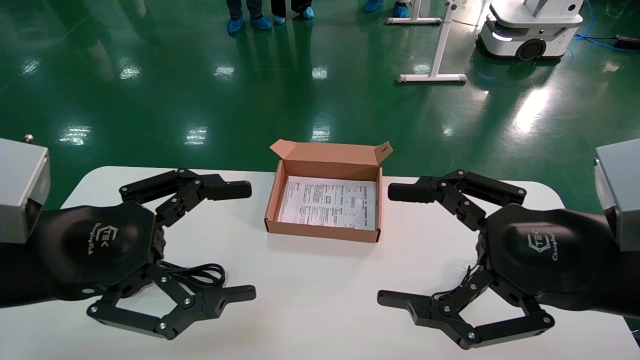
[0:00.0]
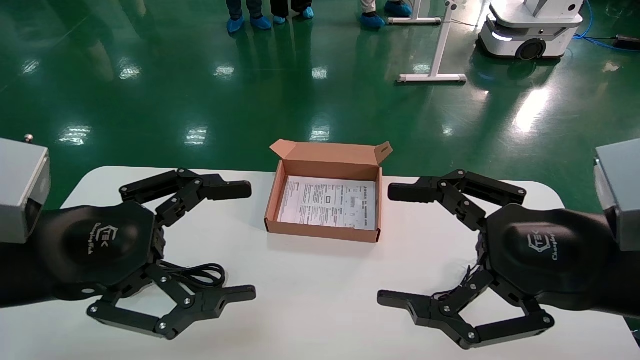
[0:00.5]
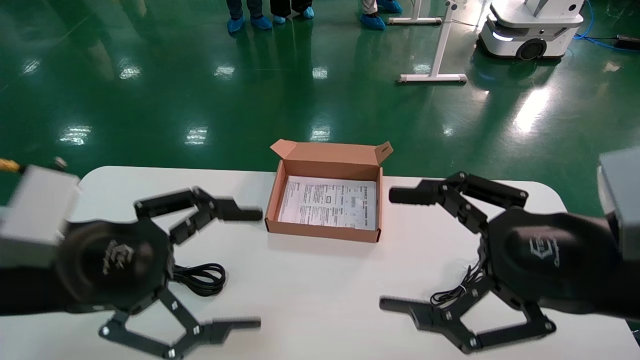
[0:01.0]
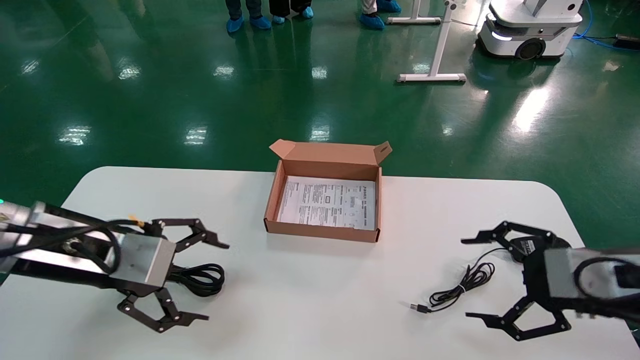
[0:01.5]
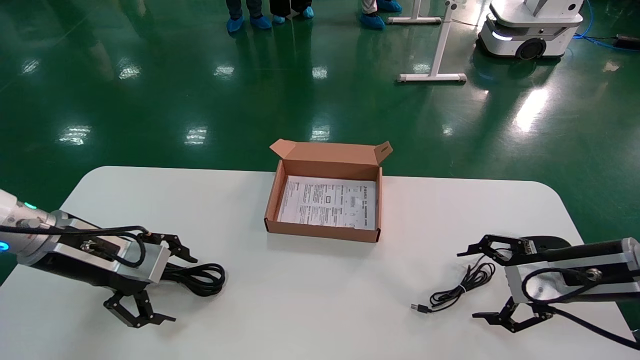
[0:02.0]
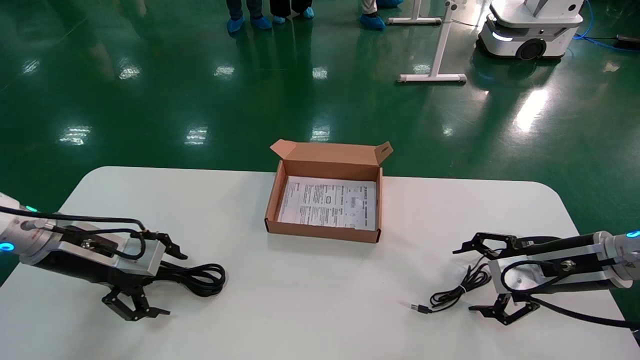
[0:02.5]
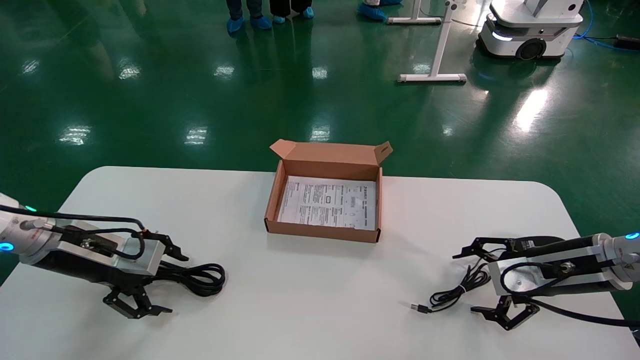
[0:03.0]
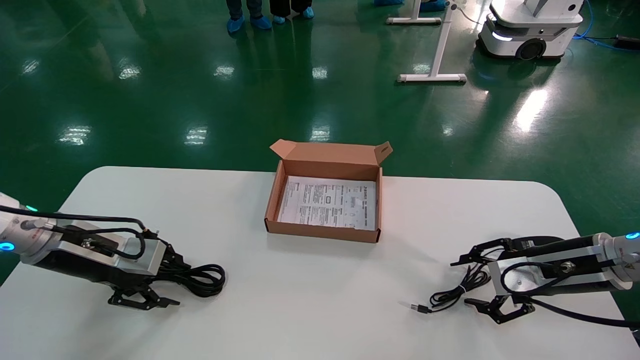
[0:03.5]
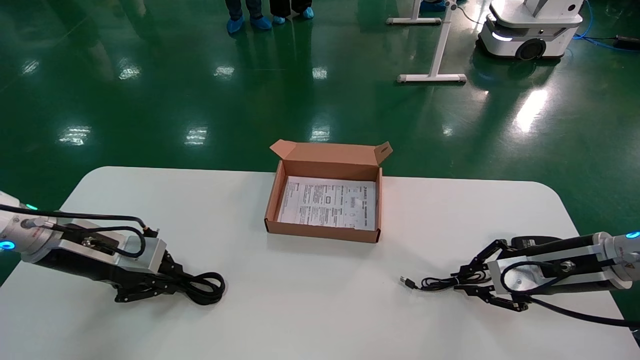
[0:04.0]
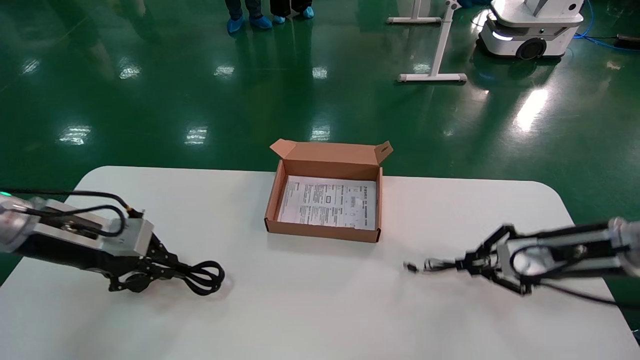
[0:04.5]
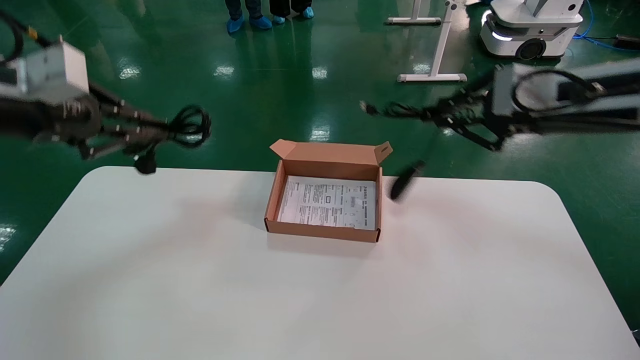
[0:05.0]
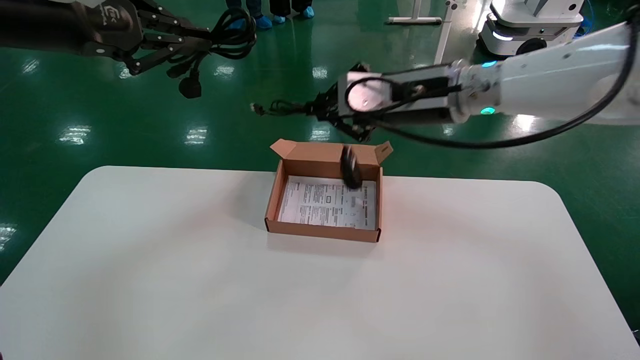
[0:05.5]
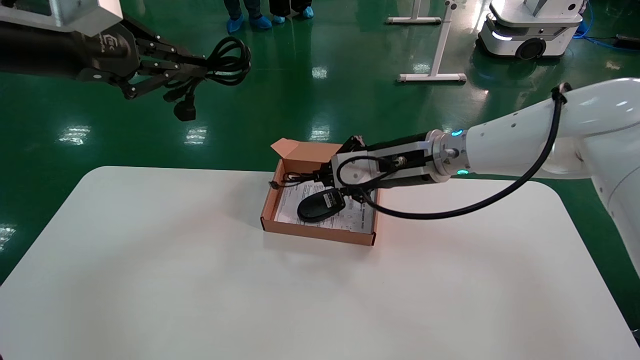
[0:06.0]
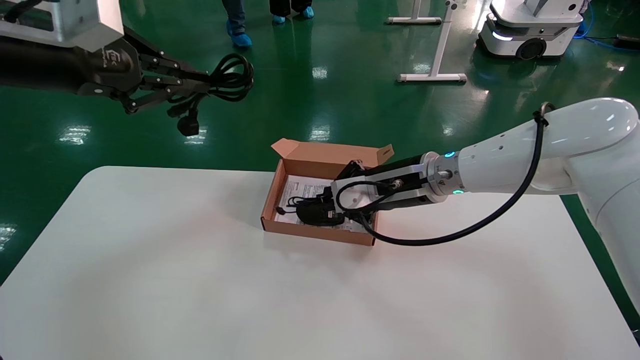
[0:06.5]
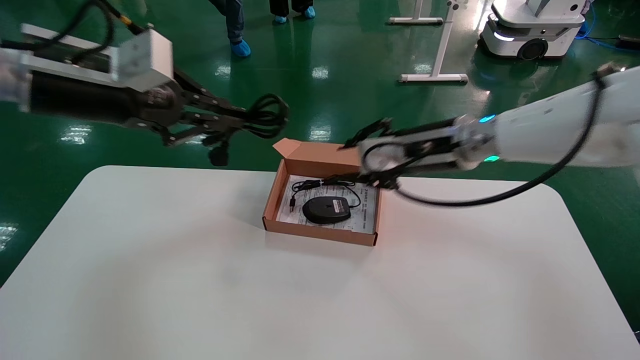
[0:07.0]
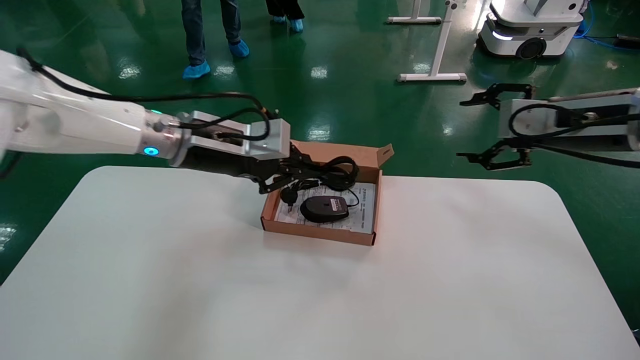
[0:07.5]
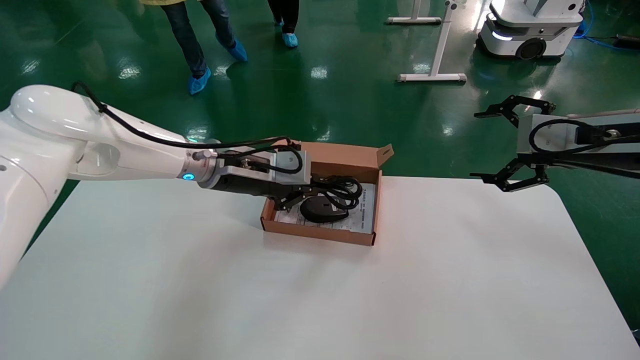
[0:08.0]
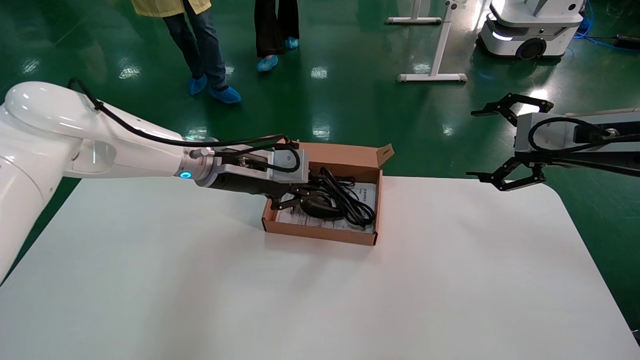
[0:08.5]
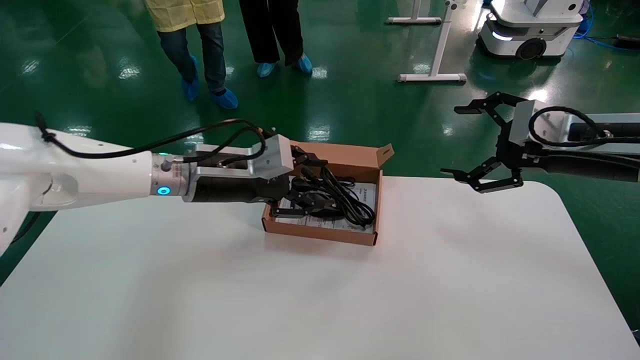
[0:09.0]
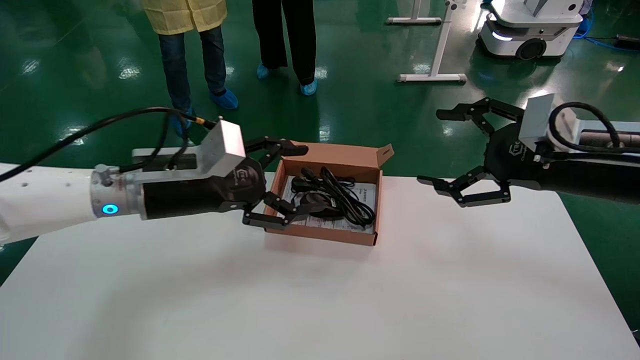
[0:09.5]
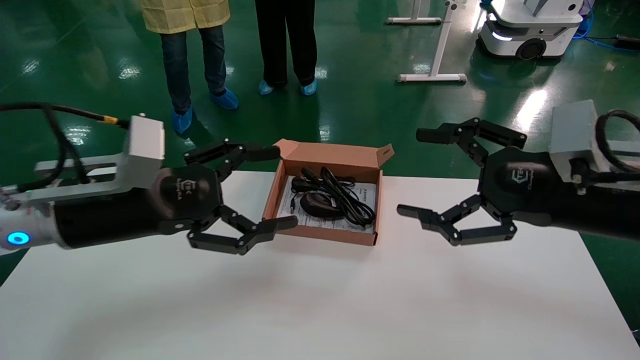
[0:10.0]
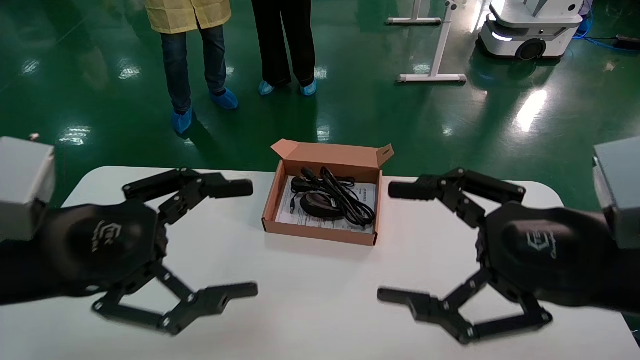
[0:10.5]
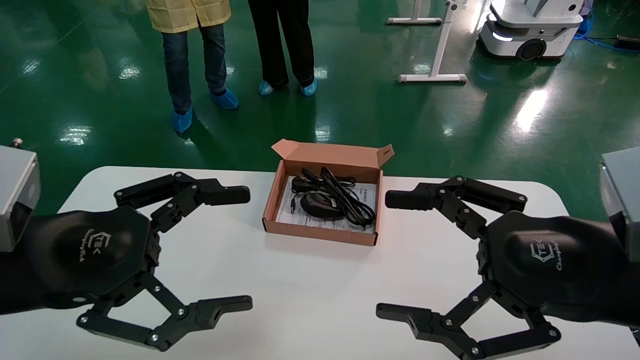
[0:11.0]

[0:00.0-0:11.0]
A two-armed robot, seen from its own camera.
Step, 0:01.5 to 0:04.0: Grab and lift both the mouse and power cord from the accessory packaging area at the same time.
Step, 0:04.5 to 0:08.5: Place the mouse and power cord into the box.
0:00.0 to 0:02.0: The left gripper heads forward, downward and to the left, covering approximately 15 cm. The right gripper is displaced forward, downward and to the right by approximately 20 cm.
0:02.0 to 0:03.5: The left gripper closes up.
0:03.5 to 0:05.5: The right gripper is displaced to the left and upward by some 30 cm, and closes its fingers; the left gripper moves upward, about 25 cm, and closes up.
0:05.5 to 0:07.5: The left gripper heads to the right, downward and forward, covering some 20 cm, while the right gripper travels to the right by roughly 20 cm, and opens.
0:07.5 to 0:09.0: The left gripper moves downward, roughly 5 cm, and opens its fingers.
0:09.0 to 0:11.0: Both grippers travel together backward and to the left, about 20 cm. The left gripper opens its fingers.

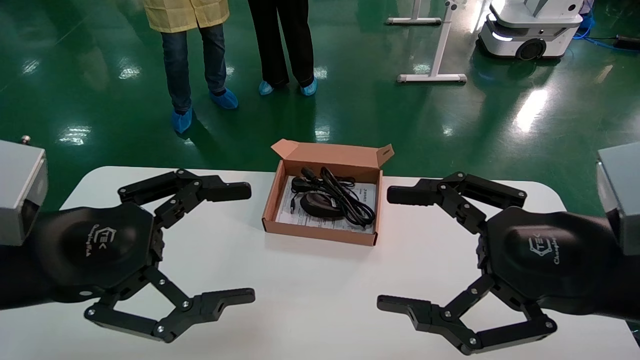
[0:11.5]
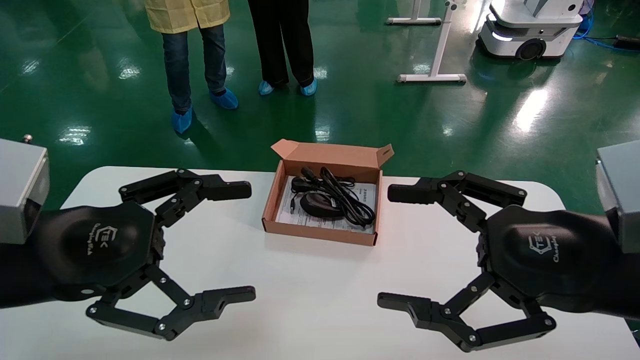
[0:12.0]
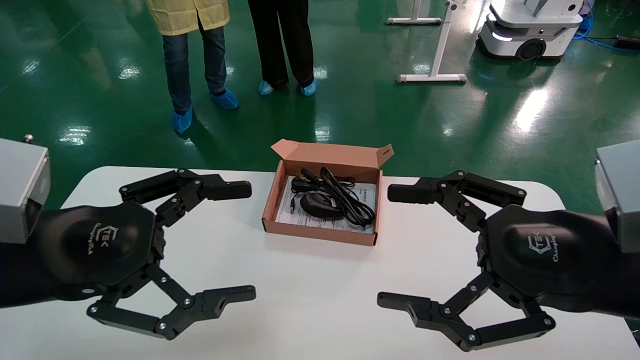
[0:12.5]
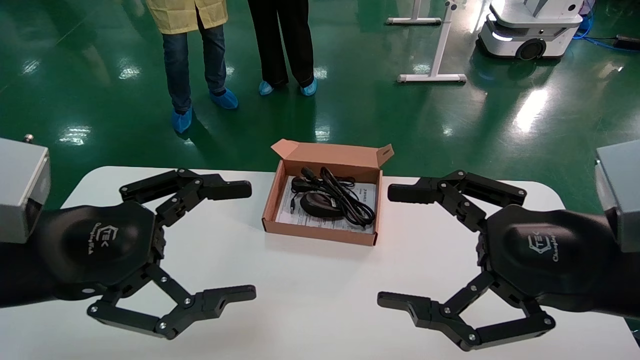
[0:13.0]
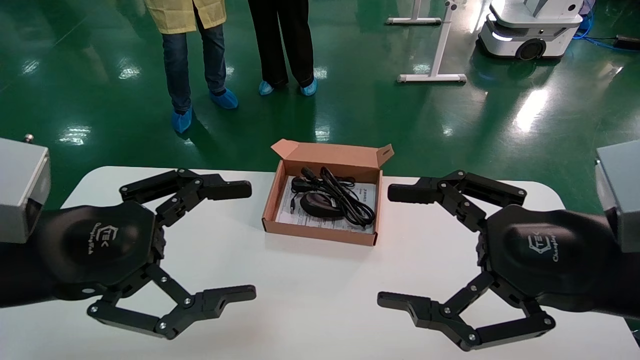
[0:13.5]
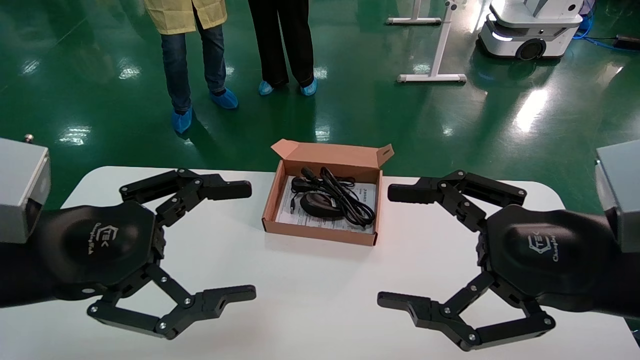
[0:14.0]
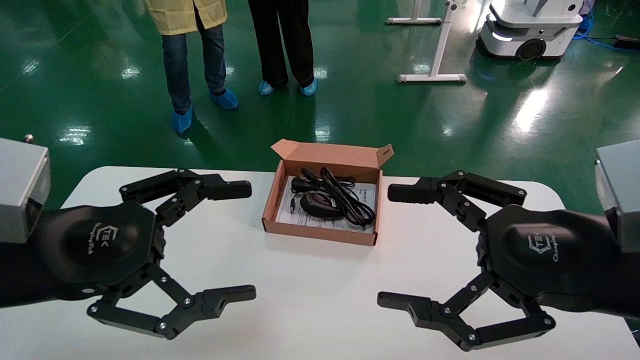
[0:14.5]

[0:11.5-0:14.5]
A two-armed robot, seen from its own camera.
0:11.5 to 0:14.5: The two grippers keep their place.
